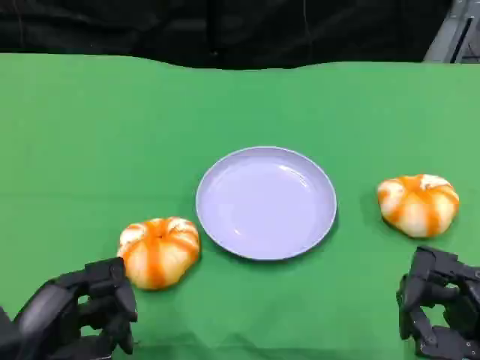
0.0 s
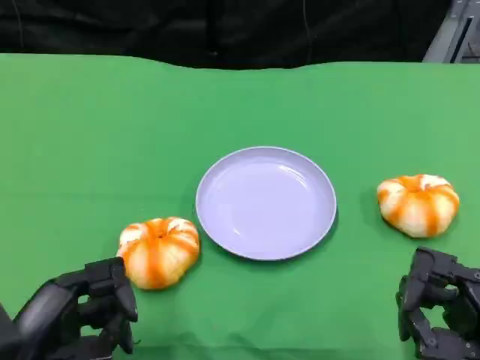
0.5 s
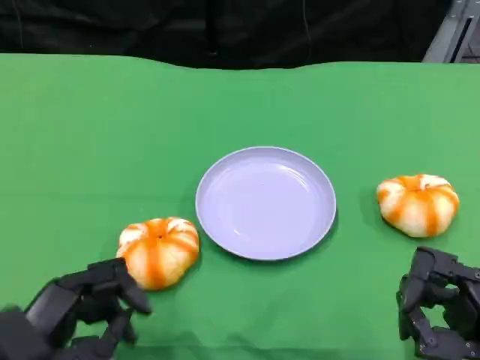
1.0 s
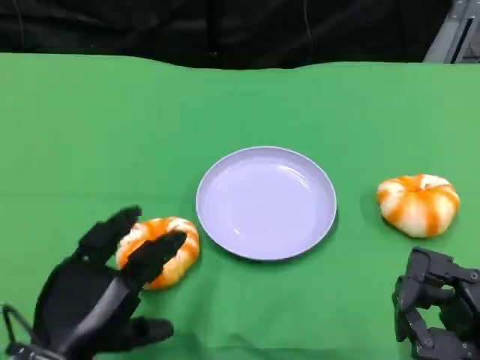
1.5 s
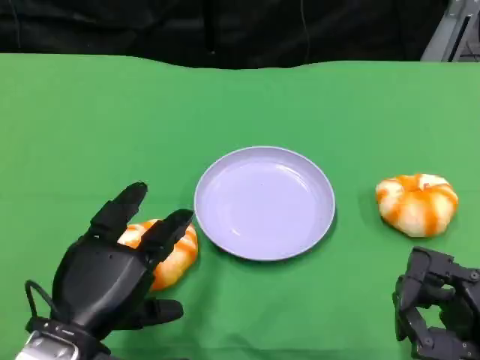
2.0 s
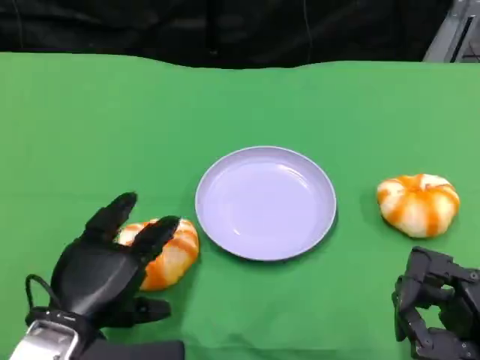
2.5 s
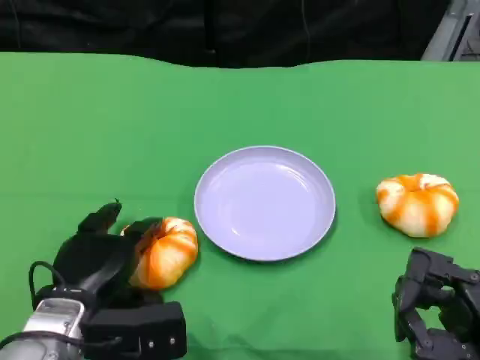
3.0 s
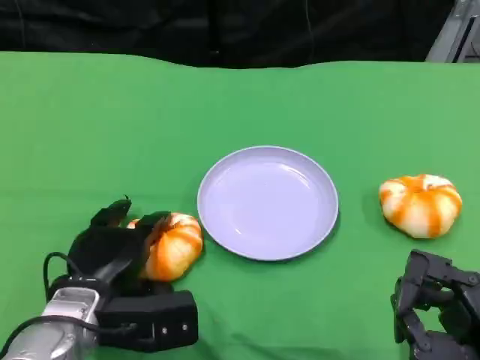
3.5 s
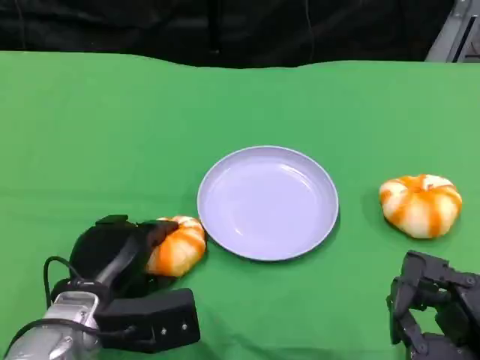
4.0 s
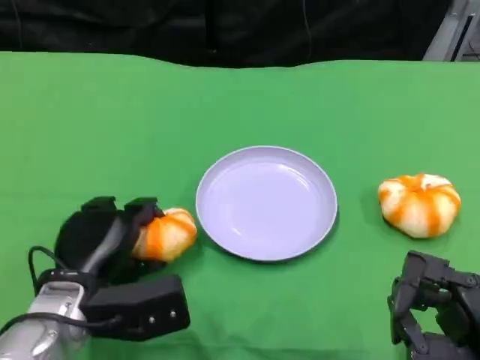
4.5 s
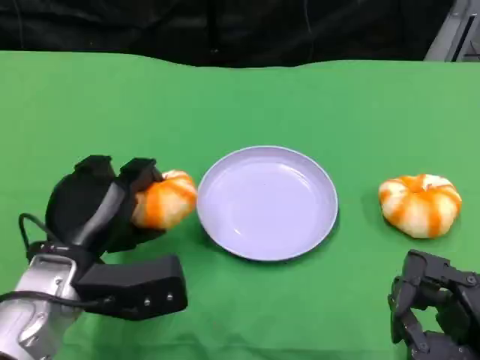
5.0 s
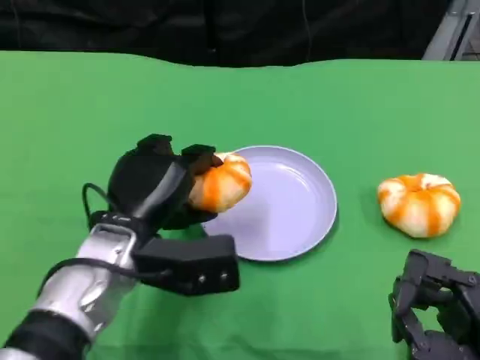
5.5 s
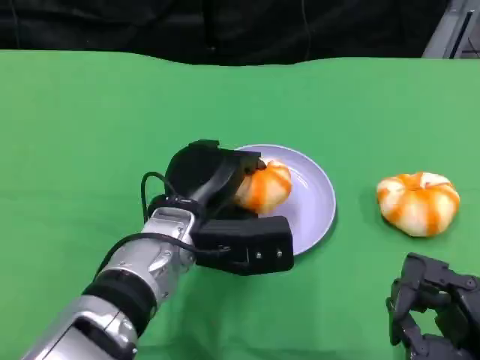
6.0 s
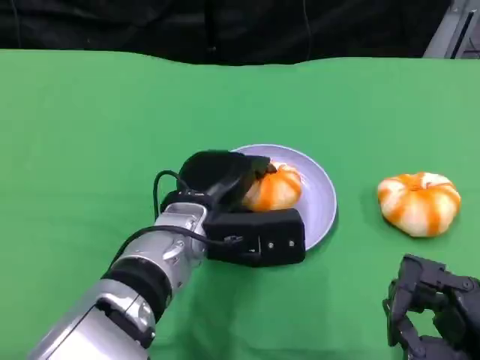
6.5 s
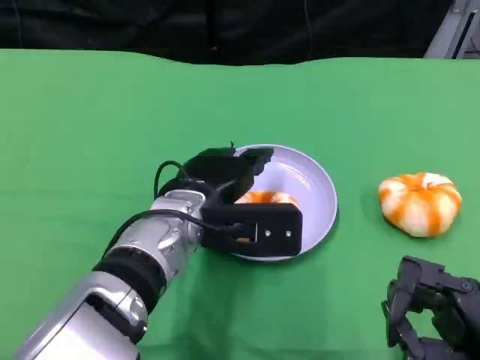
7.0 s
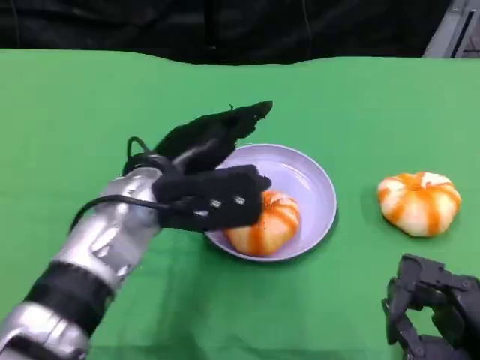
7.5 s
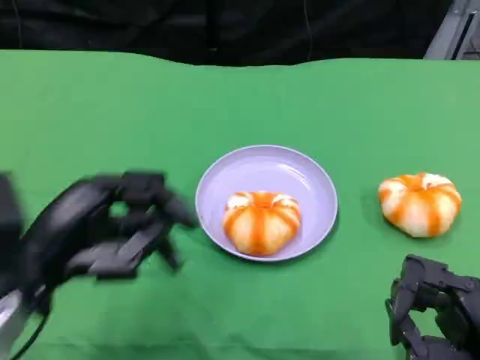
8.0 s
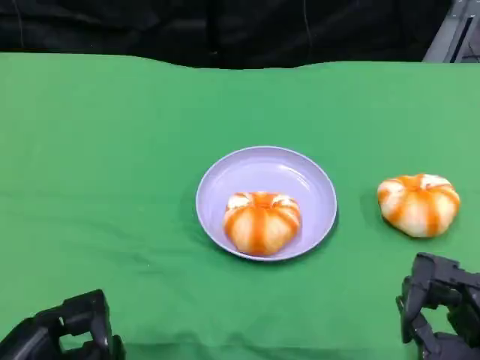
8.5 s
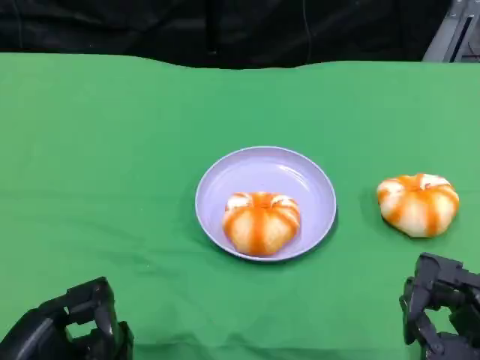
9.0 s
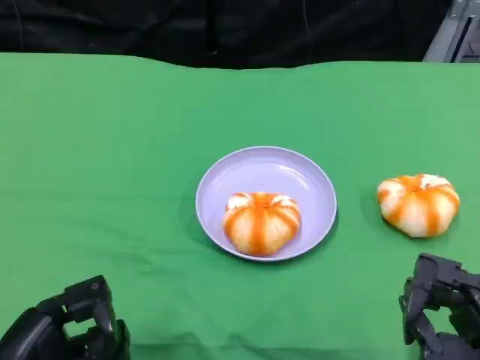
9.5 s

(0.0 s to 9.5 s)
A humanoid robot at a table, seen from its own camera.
Task of the whole recording: Grasp the bread from the table and place it into the plate.
0.0 s - 2.0 s: The left hand goes roughly 5 cm to the right.
2.0 s - 4.0 s: The left hand is displaced forward by approximately 5 cm.
4.0 s - 5.5 s: The left hand travels upward by some 5 cm.
5.5 s - 7.5 s: The left hand heads upward, covering approximately 5 cm.
7.5 s - 9.5 s: The left hand shifts some 25 cm backward, to the left and downward.

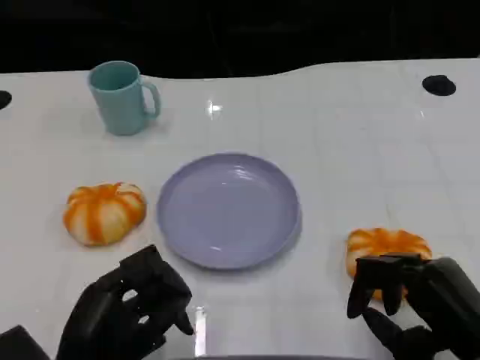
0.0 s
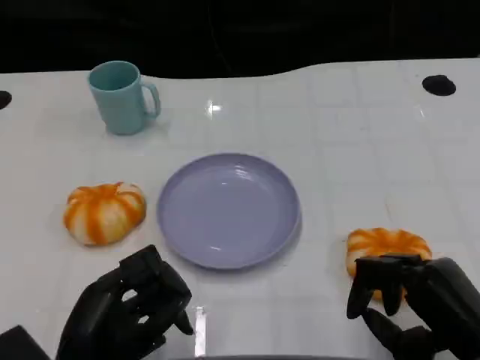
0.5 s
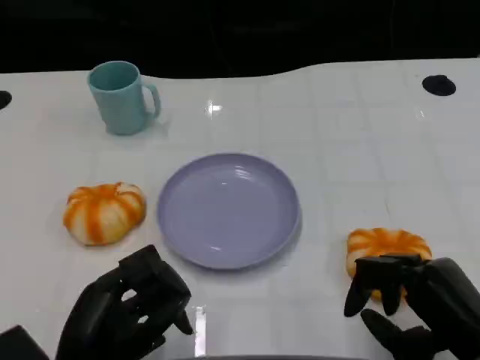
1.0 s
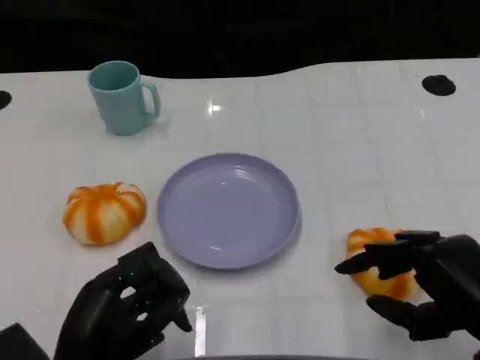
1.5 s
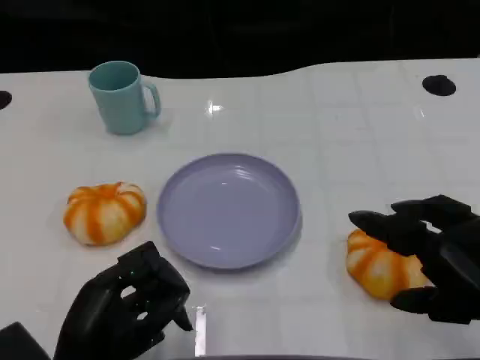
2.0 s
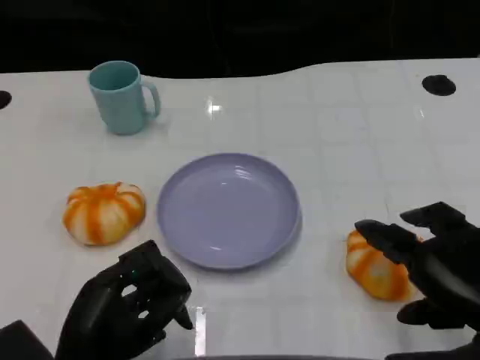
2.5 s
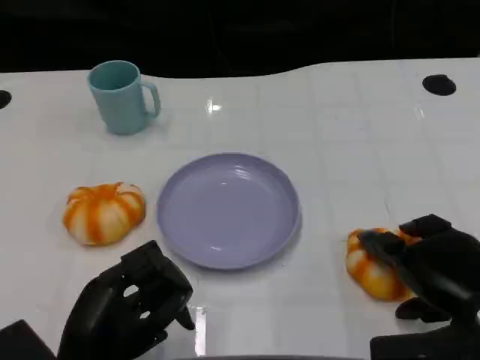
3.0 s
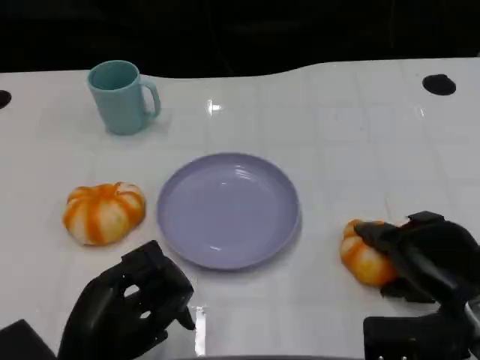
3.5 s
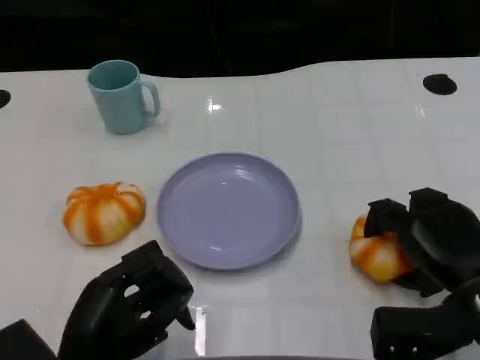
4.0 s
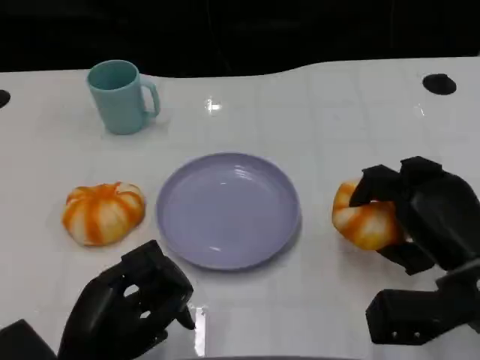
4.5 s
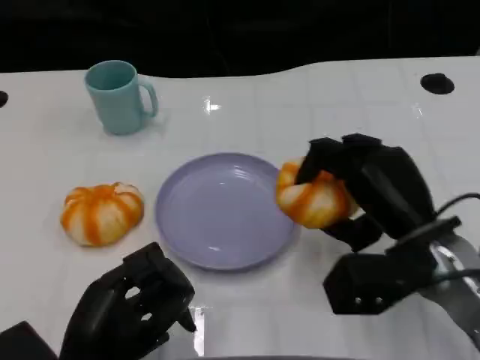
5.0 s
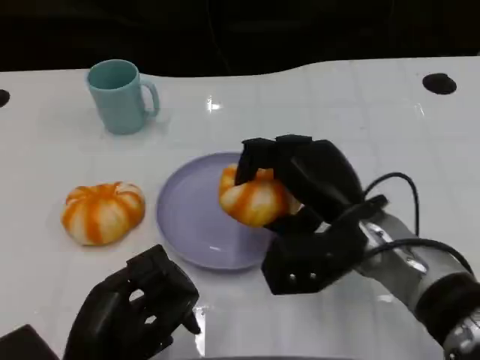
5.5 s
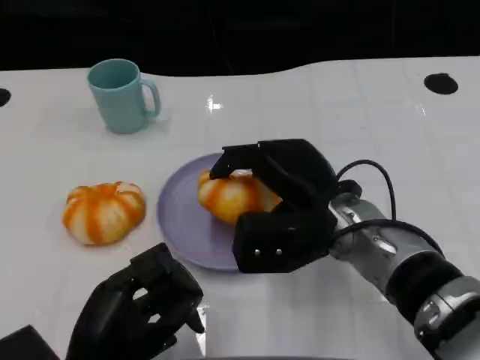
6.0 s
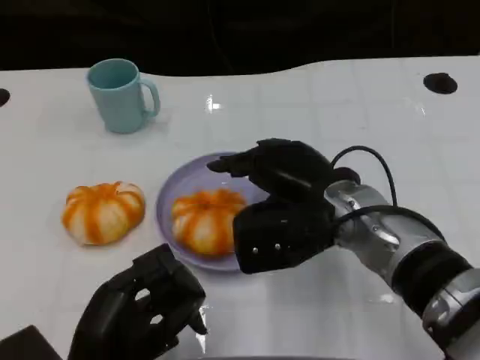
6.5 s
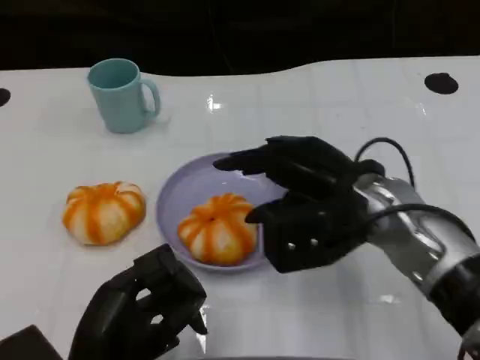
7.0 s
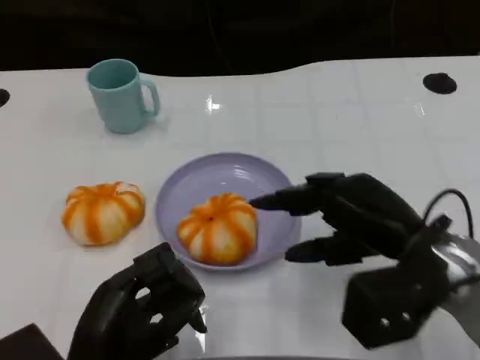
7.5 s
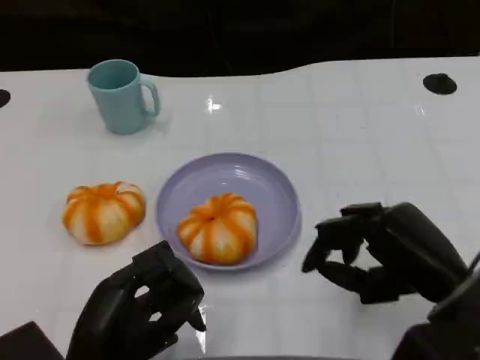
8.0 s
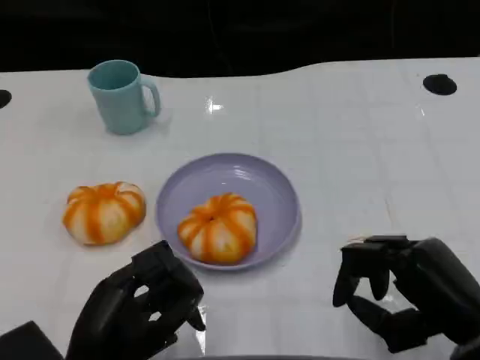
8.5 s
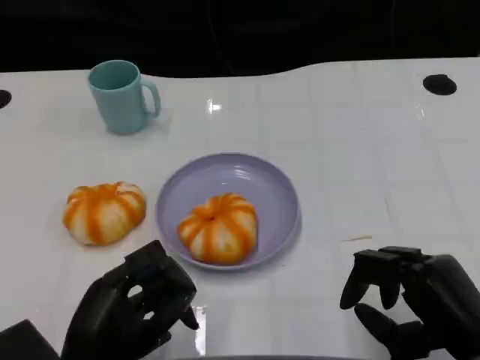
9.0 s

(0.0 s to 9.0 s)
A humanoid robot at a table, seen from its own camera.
Task of the whole recording: Grasp the bread from the table and place it into the plate.
0.0 s - 2.0 s: The right hand shifts about 10 cm upward.
2.0 s - 4.5 s: The right hand travels forward and downward by some 10 cm.
4.5 s - 7.0 s: The right hand is displaced to the left and upward by approximately 10 cm.
7.0 s - 9.0 s: The right hand travels backward, to the right and downward by some 20 cm.

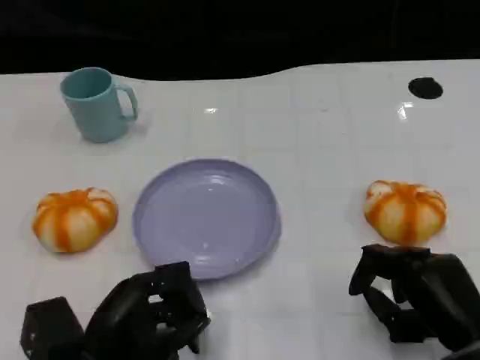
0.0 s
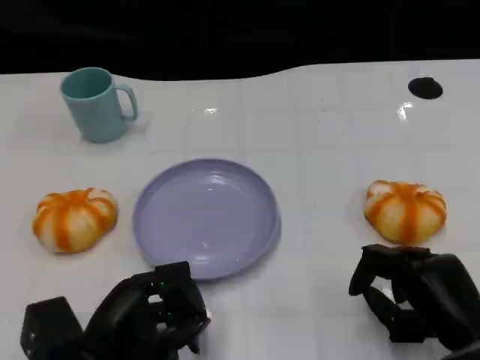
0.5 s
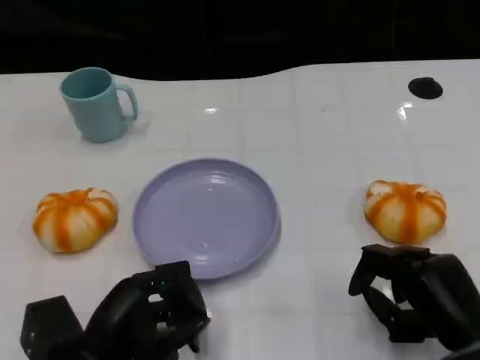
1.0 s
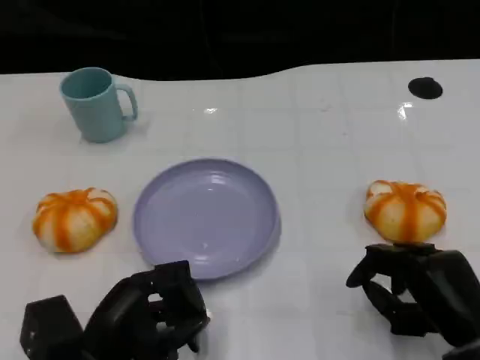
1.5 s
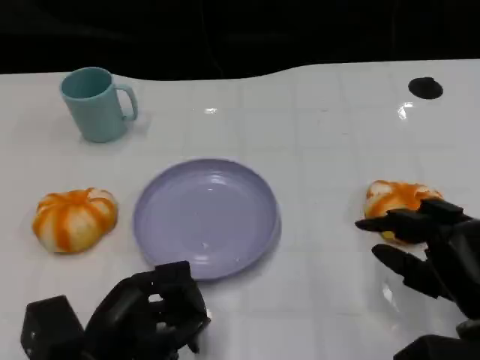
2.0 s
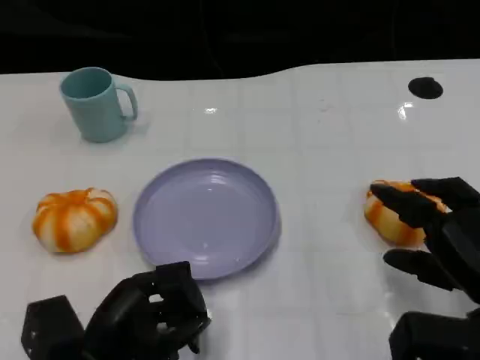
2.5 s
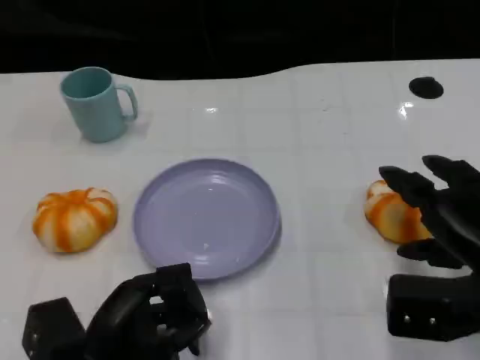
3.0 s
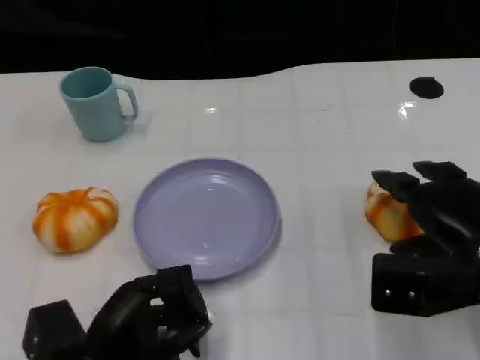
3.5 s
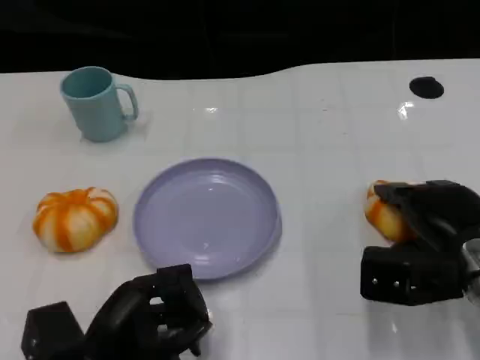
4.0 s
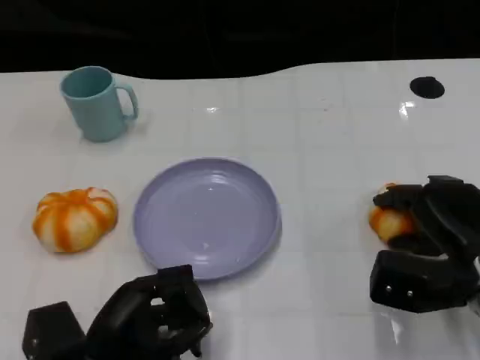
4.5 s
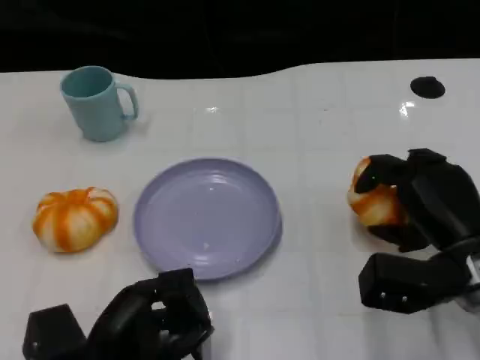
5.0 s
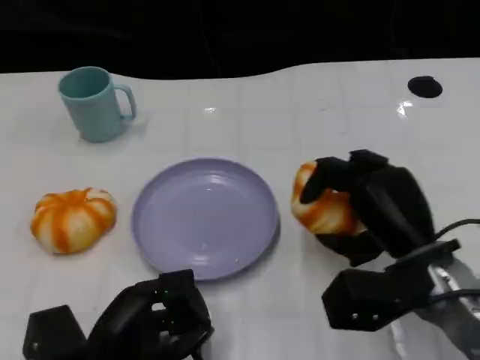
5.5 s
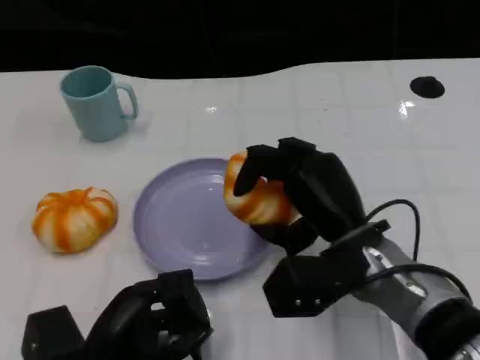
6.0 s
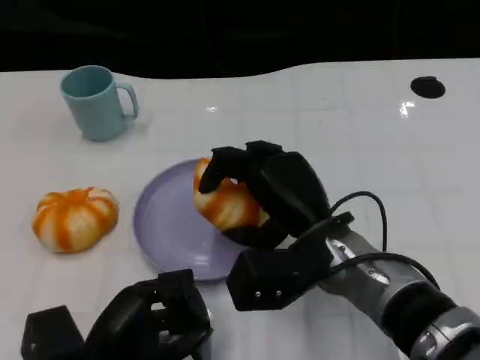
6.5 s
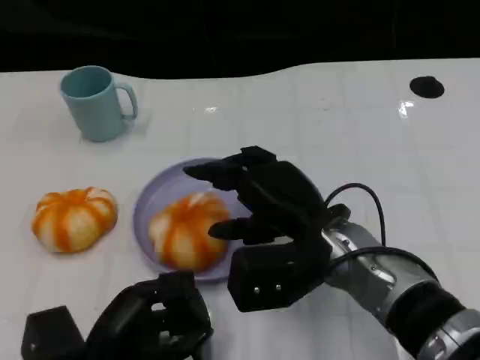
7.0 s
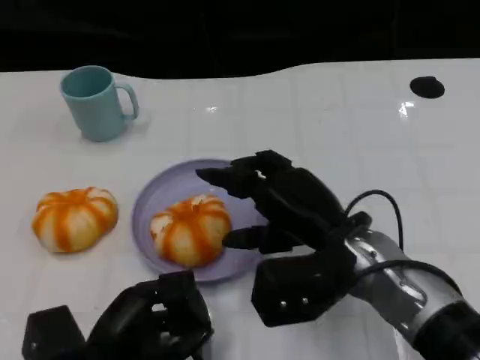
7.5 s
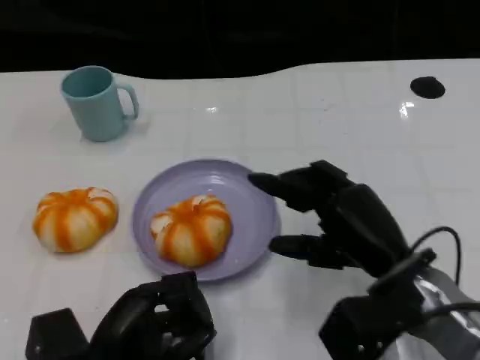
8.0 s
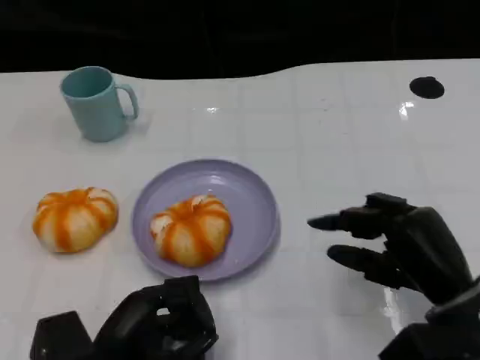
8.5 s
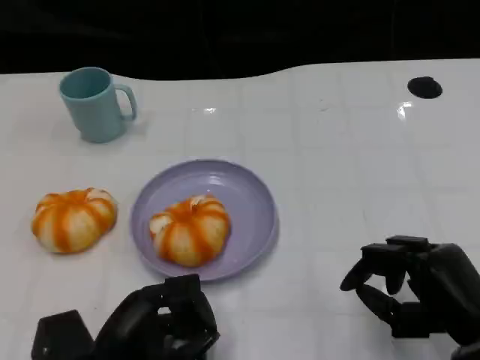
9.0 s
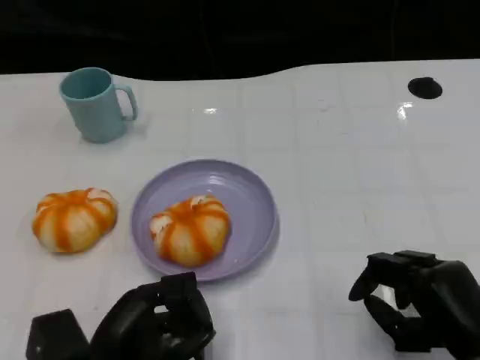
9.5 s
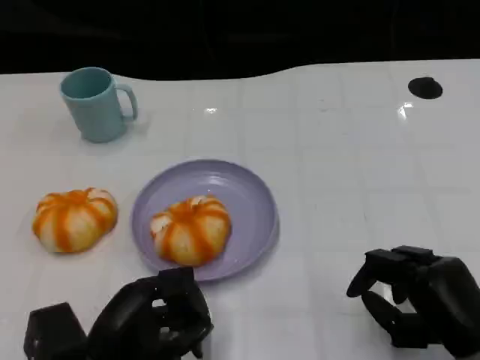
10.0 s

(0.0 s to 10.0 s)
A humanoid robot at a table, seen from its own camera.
Task of the whole recording: Grasp the bread from the table and place it into the plate.
0.0 s - 2.0 s: There are only small adjustments of the hands.
2.0 s - 4.0 s: The right hand heads forward, covering about 5 cm.
4.0 s - 6.0 s: The right hand moves to the left, roughly 15 cm.
6.0 s - 8.0 s: The right hand heads to the right, covering roughly 5 cm.
8.0 s - 10.0 s: The right hand travels to the right and backward by some 10 cm.
